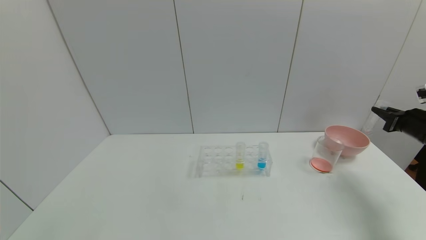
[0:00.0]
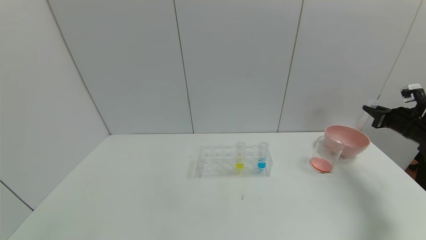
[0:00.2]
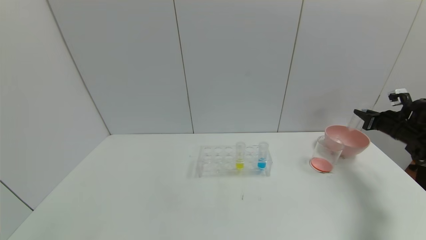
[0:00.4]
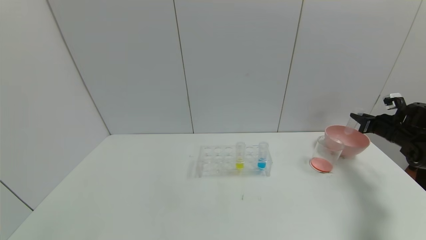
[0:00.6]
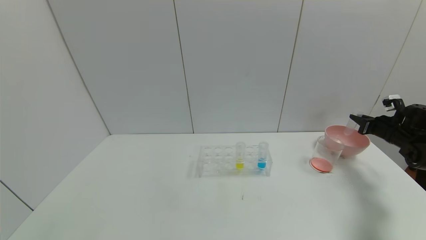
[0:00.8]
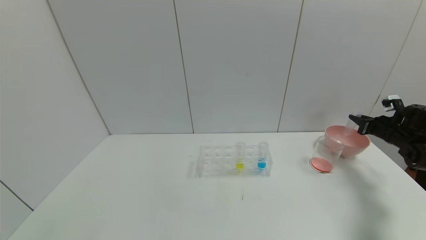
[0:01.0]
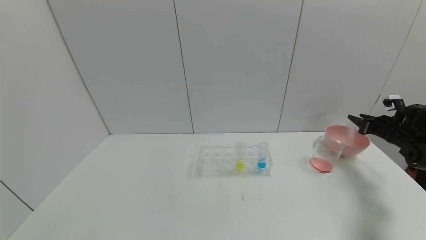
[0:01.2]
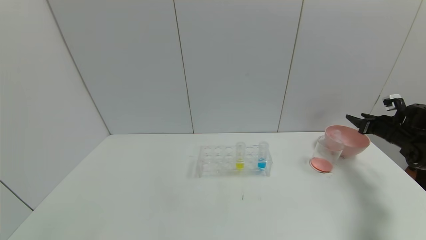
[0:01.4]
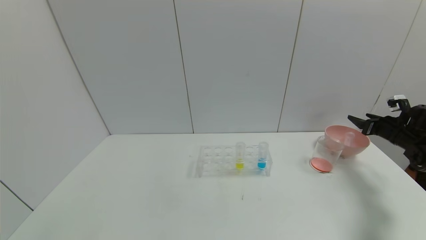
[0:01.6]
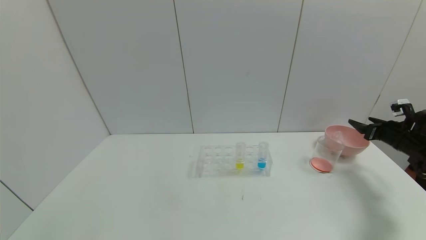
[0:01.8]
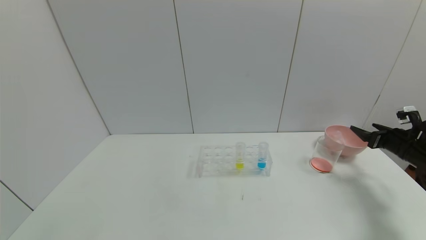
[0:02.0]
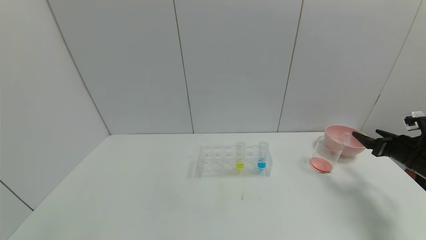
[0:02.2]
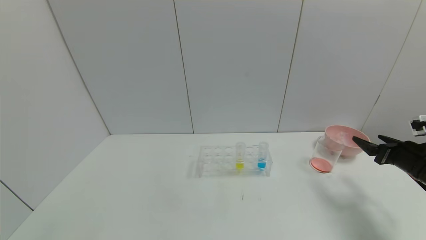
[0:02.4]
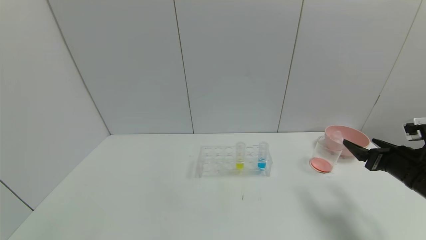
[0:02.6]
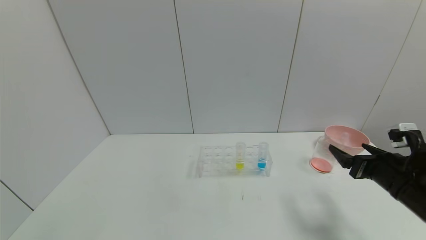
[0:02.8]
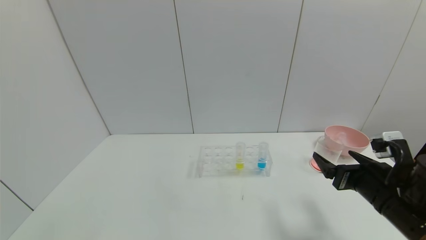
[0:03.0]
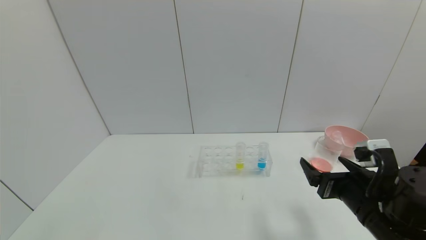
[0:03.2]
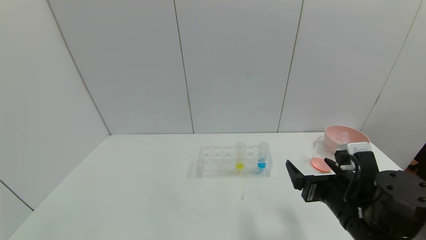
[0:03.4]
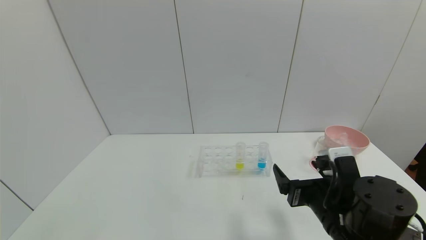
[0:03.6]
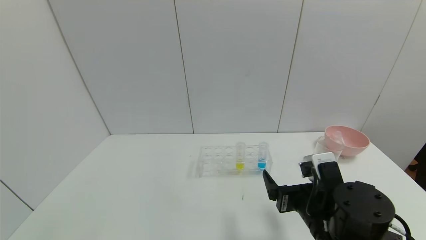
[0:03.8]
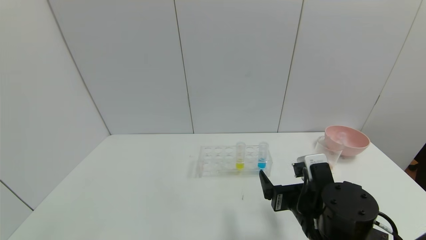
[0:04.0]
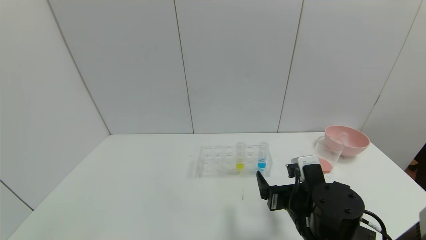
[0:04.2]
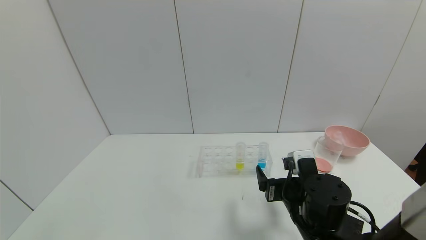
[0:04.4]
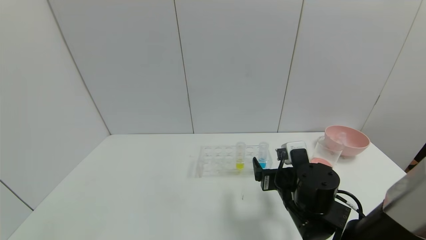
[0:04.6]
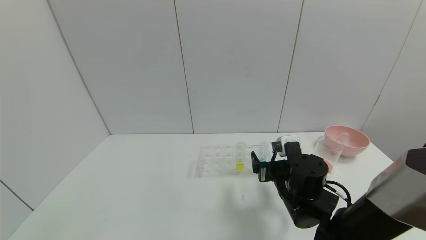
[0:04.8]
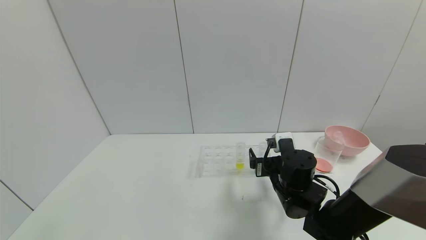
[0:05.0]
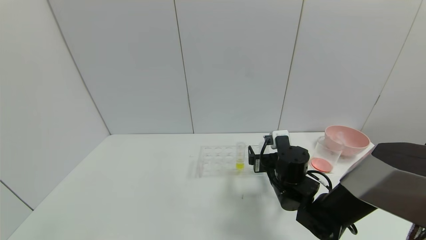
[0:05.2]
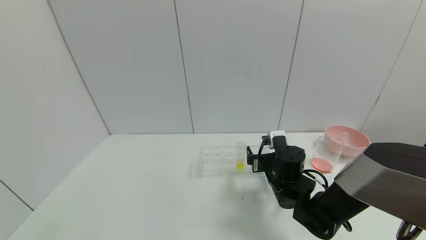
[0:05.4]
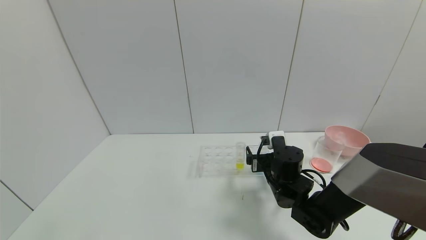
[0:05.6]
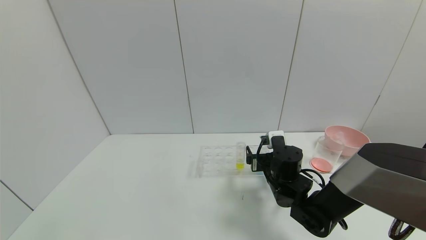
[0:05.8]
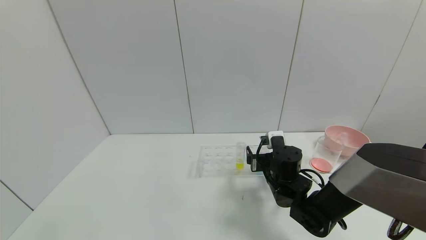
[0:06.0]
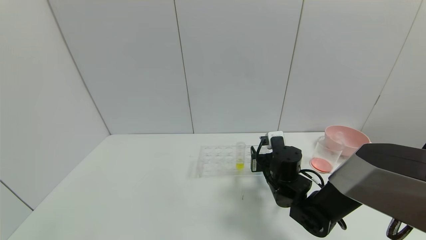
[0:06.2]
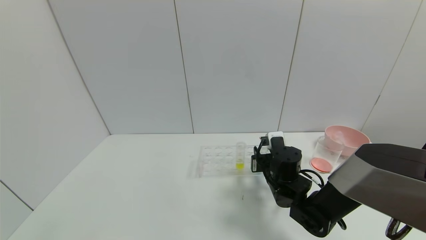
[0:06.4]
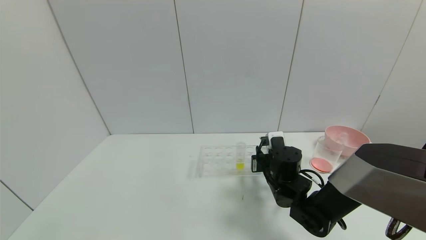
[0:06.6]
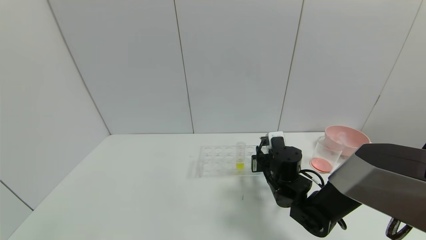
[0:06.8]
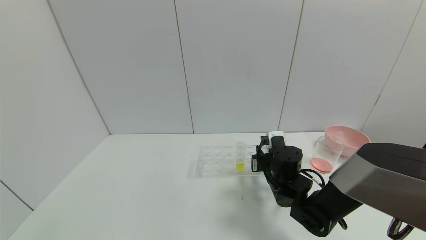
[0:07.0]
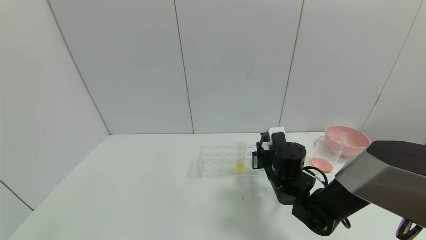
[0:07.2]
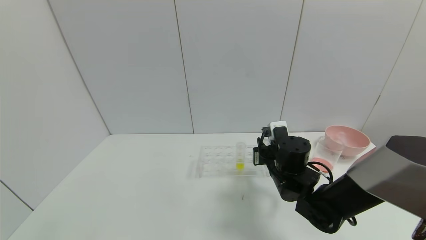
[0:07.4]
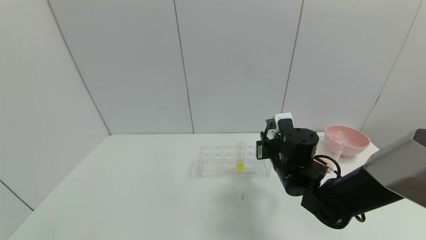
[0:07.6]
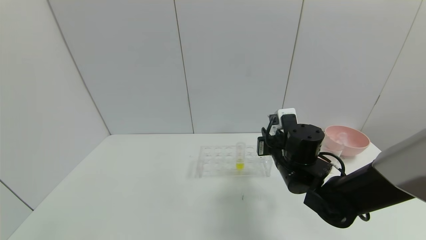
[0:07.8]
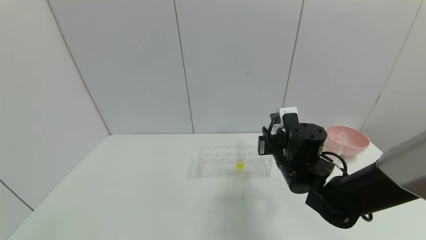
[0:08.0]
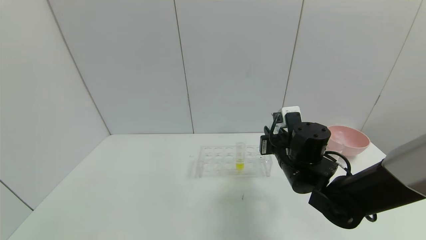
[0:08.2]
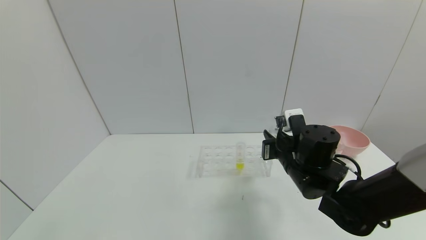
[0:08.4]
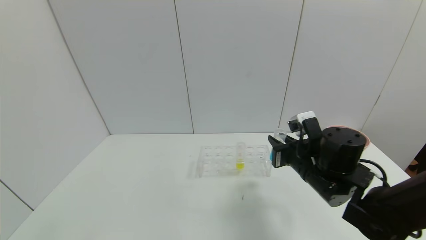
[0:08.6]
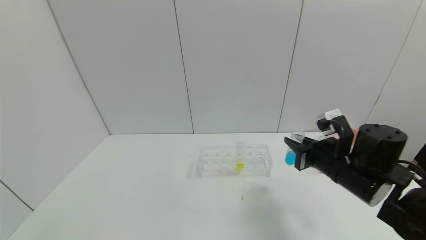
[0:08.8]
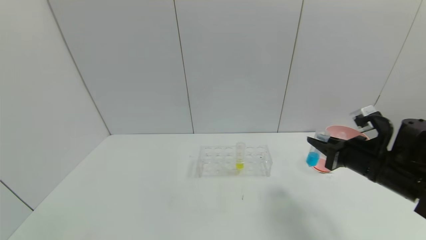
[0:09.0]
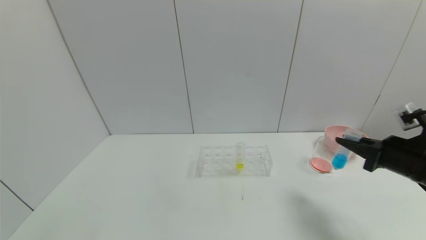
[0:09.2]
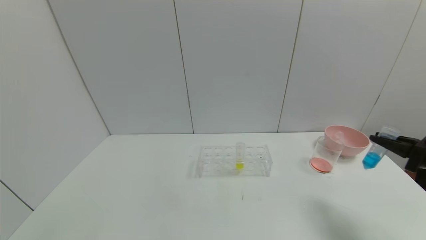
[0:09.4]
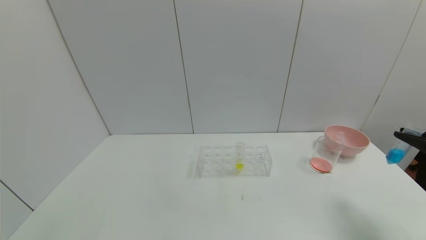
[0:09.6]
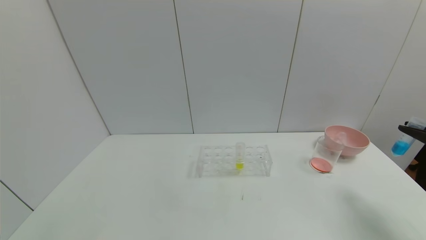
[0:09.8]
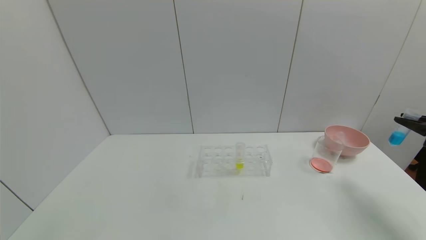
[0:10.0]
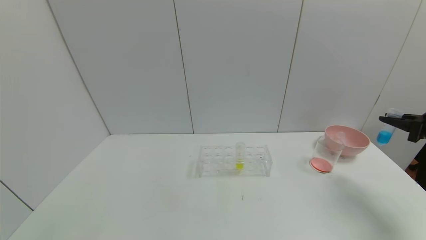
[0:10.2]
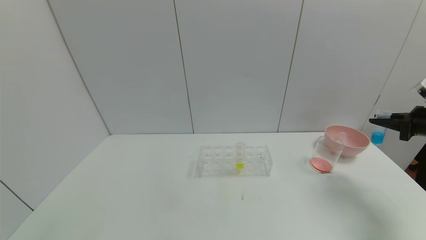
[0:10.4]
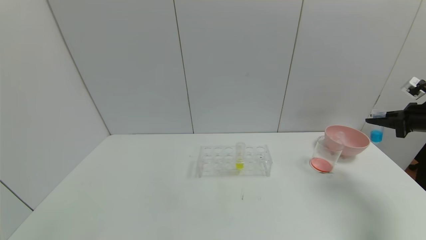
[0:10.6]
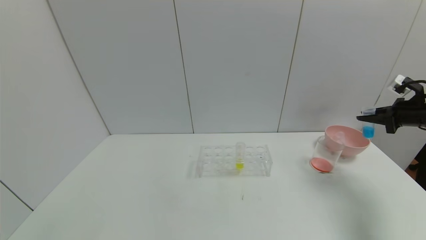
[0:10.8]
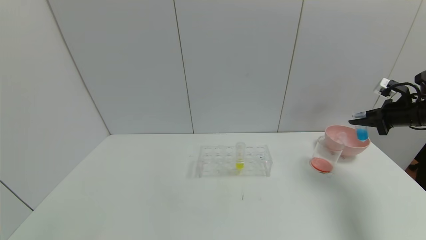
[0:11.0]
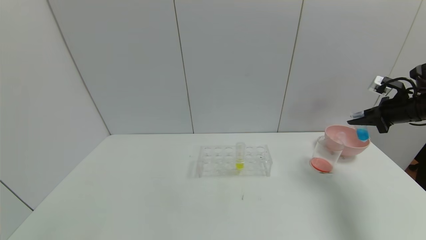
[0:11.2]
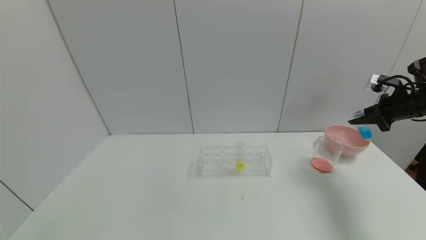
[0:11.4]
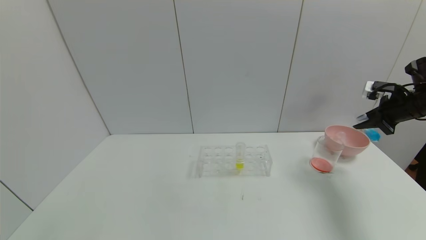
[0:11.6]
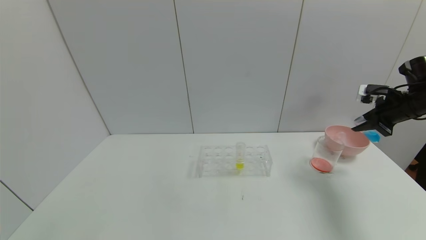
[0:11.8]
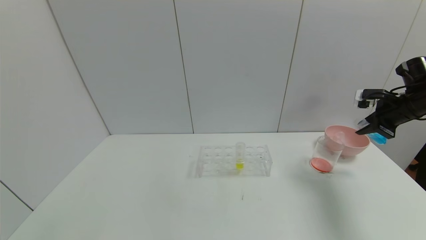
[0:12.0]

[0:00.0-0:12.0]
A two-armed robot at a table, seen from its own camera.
Task of the whole recording: pick up the test tube with red pigment and the test tube with blue pigment by grippers and pour them into the container.
Step, 0:01.8 to 0:06.6: Grasp the blue reagent with the right gripper.
0:00.0 to 0:01.6: The right gripper is displaced forward and downward by some 10 cm, and opens up.
0:01.6 to 0:03.0: The right gripper goes roughly 30 cm to the left and backward.
0:03.0 to 0:04.4: The right gripper heads to the left, covering roughly 15 cm.
0:04.4 to 0:06.0: The right gripper heads forward, covering roughly 10 cm.
0:06.0 to 0:07.6: The right gripper shifts about 5 cm upward, and closes.
0:07.6 to 0:09.0: The right gripper is displaced to the right by approximately 15 cm.
0:09.0 to 0:10.4: The right gripper goes roughly 20 cm to the right.
0:10.4 to 0:12.0: The right gripper heads to the left and forward, covering roughly 10 cm.

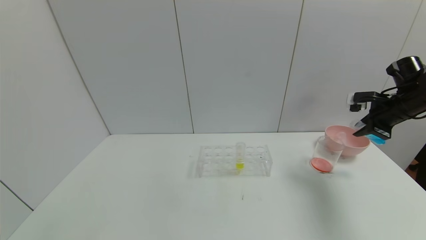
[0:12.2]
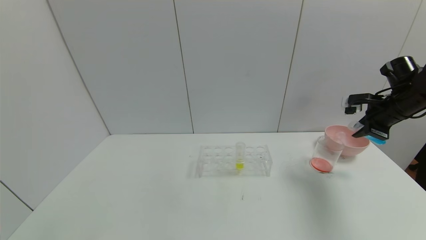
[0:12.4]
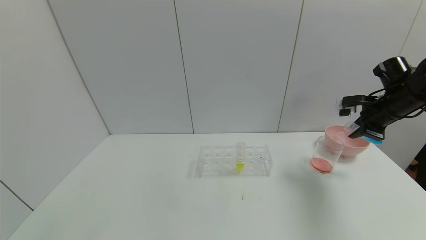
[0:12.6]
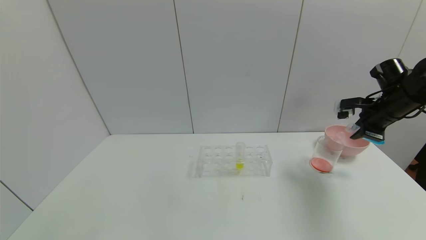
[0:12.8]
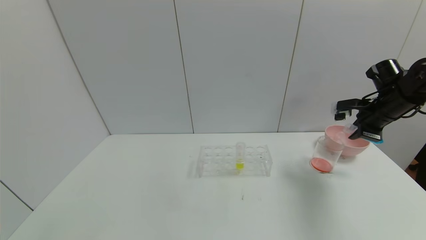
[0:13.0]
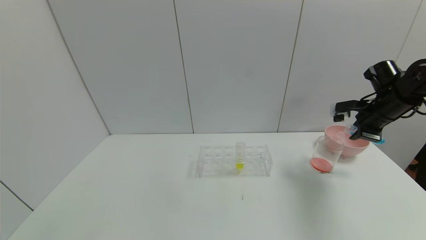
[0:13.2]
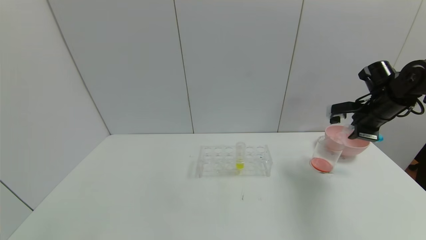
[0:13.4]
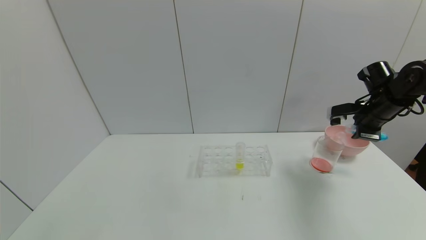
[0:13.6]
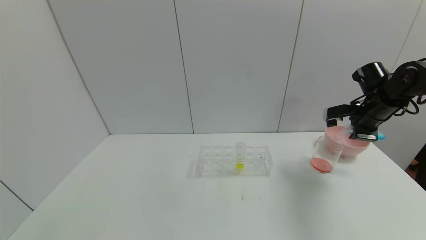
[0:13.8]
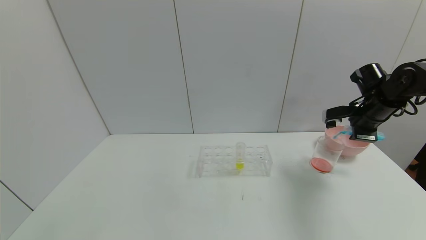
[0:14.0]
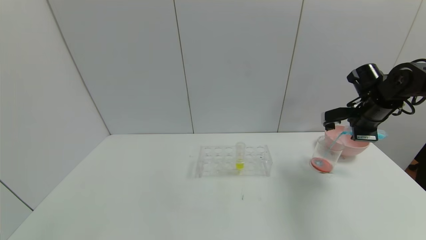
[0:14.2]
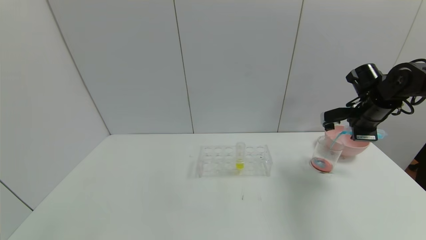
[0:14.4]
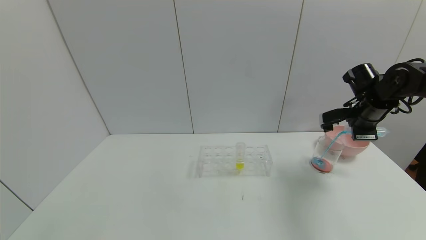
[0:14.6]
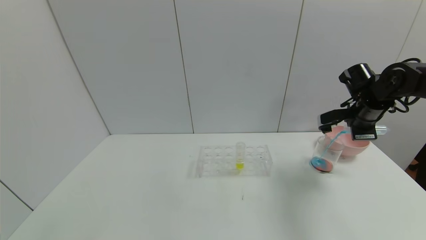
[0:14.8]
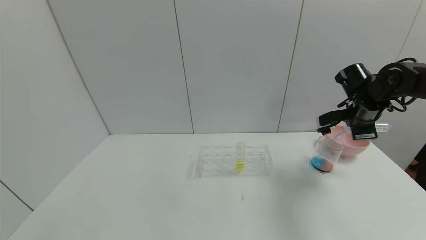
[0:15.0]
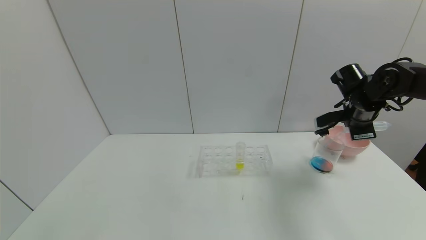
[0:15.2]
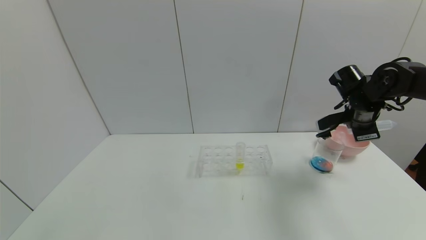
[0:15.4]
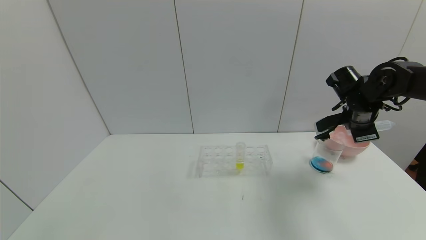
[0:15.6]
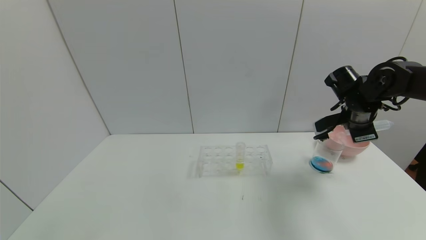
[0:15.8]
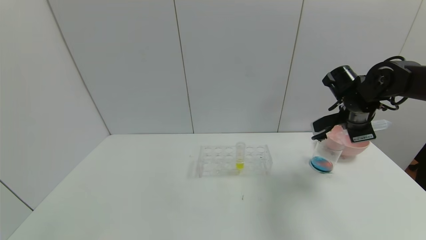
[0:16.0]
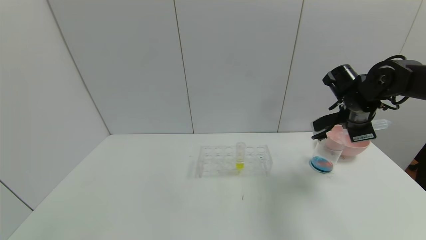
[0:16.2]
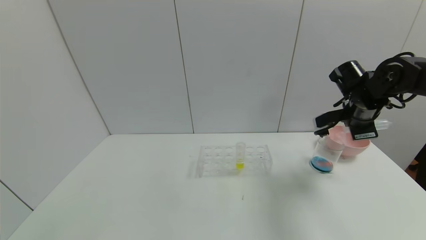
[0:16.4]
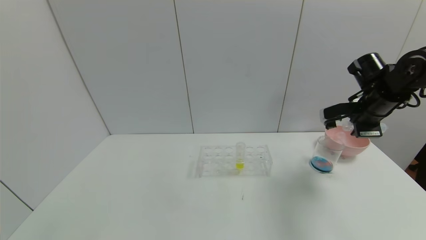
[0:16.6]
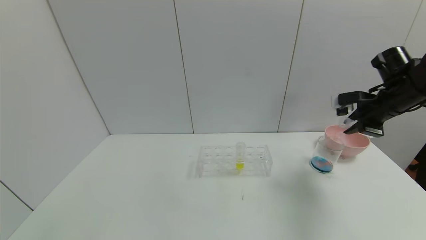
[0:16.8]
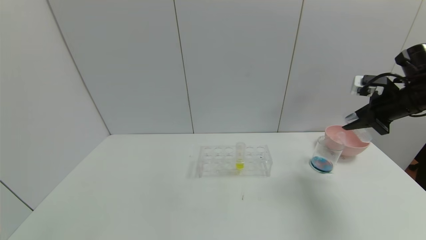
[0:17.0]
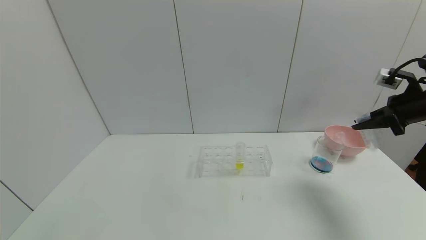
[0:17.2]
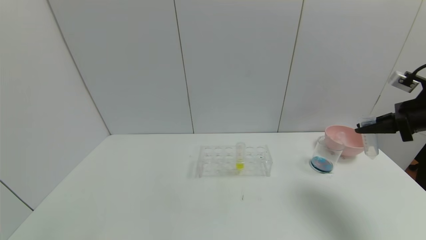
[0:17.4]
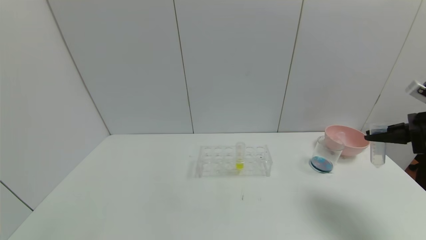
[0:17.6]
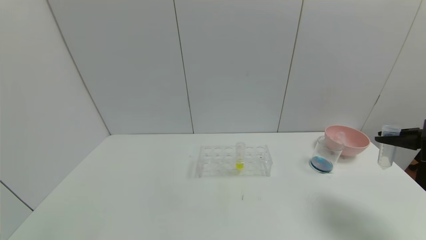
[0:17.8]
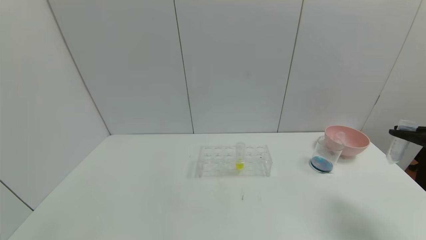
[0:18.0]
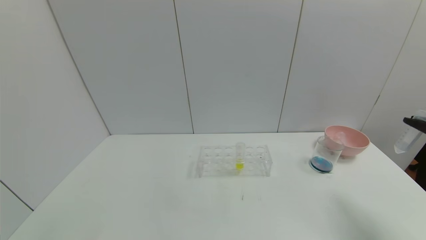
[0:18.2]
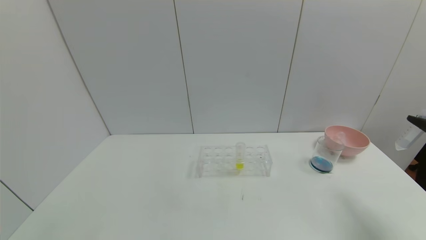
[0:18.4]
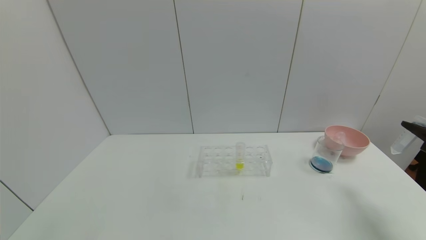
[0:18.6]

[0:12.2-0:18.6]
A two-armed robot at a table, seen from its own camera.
Task of the whole recording: pick up the test tube with red pigment and the test tube with blue pigment by grippers and pour them into the container.
Step, 0:12.2 to 0:15.2: Pour the blue reagent into the graduated cylinder with the right gripper.
0:12.2 to 0:13.8: The right gripper moves approximately 5 cm.
0:15.4 to 0:17.0: The right gripper is displaced to the right by some 10 cm.
0:17.0 to 0:18.6: The right gripper goes some 15 cm backward, downward and to the right.
